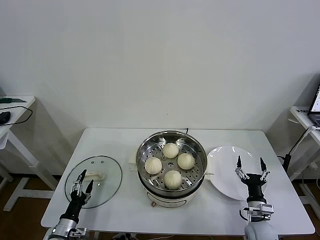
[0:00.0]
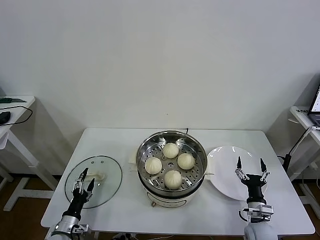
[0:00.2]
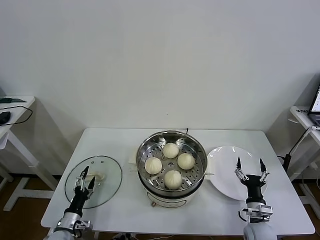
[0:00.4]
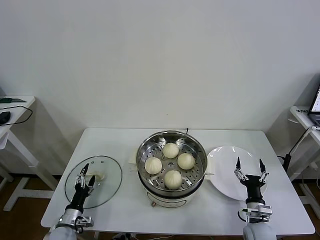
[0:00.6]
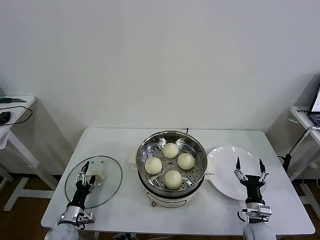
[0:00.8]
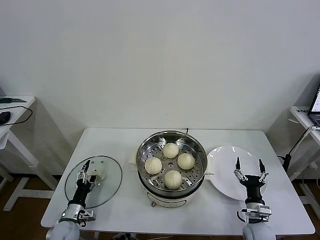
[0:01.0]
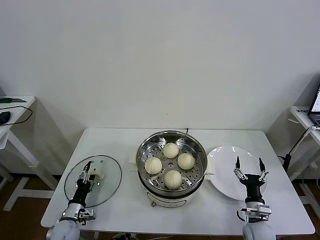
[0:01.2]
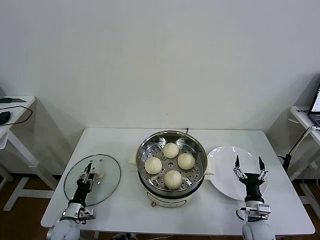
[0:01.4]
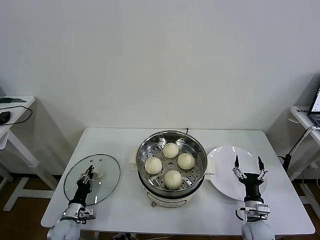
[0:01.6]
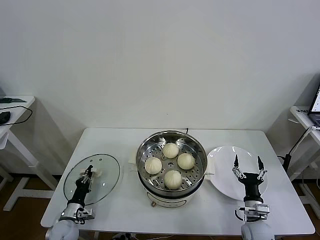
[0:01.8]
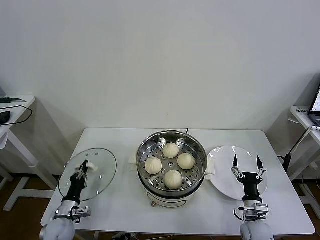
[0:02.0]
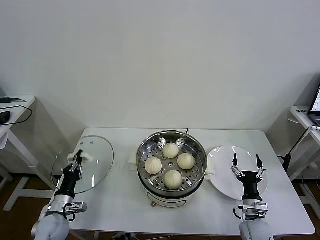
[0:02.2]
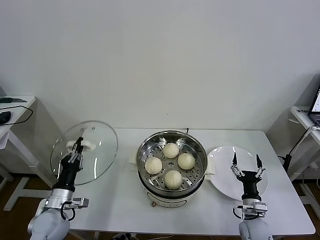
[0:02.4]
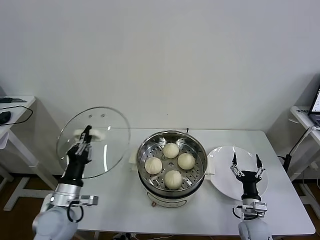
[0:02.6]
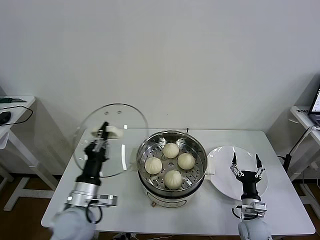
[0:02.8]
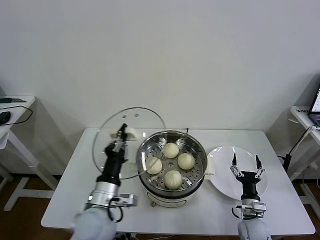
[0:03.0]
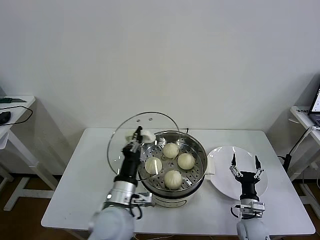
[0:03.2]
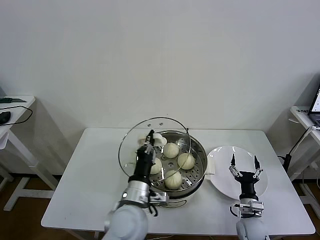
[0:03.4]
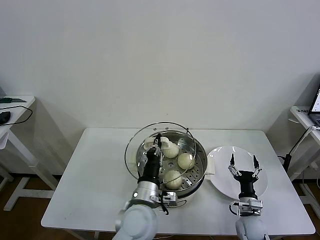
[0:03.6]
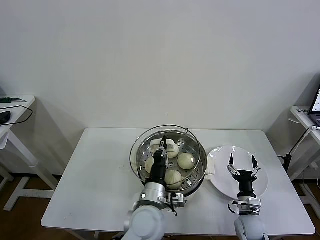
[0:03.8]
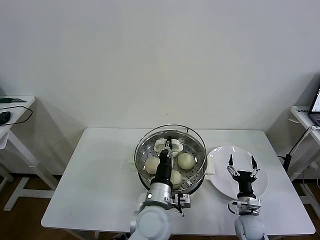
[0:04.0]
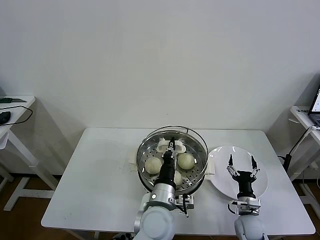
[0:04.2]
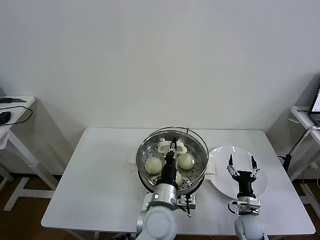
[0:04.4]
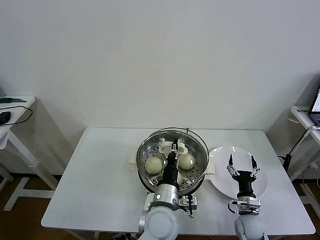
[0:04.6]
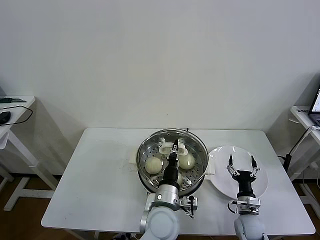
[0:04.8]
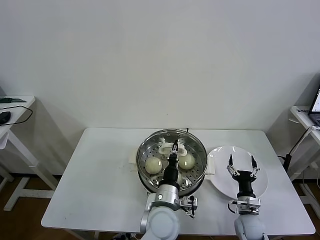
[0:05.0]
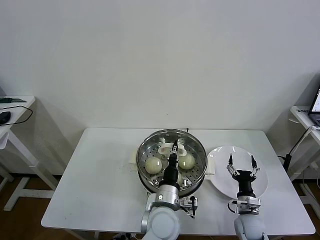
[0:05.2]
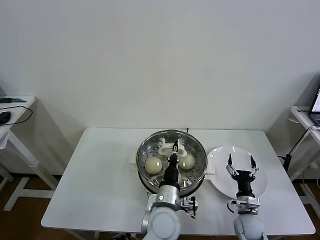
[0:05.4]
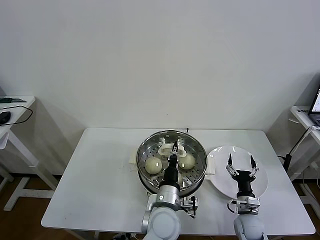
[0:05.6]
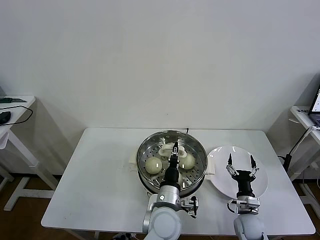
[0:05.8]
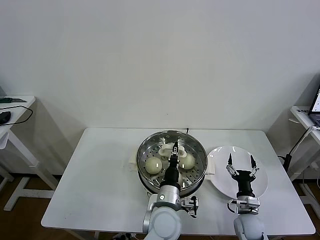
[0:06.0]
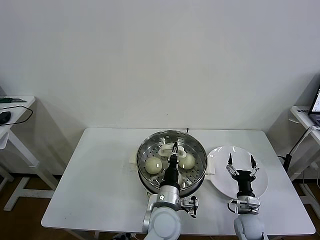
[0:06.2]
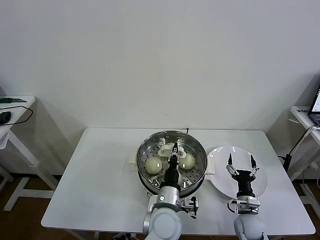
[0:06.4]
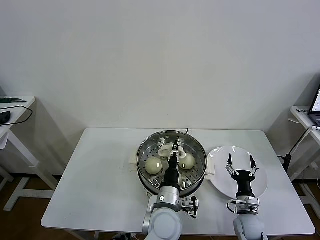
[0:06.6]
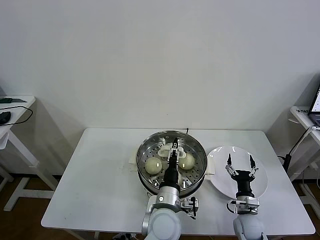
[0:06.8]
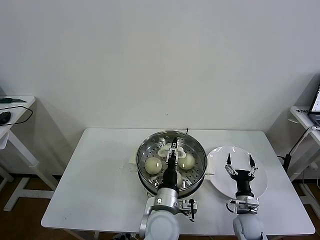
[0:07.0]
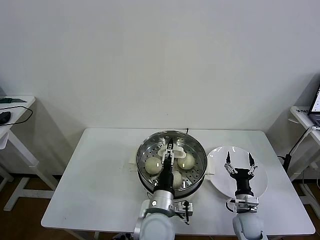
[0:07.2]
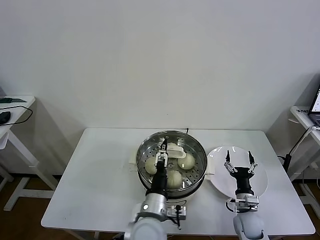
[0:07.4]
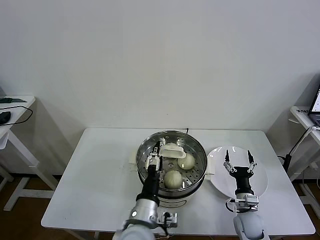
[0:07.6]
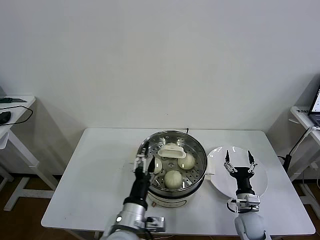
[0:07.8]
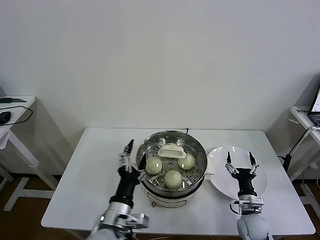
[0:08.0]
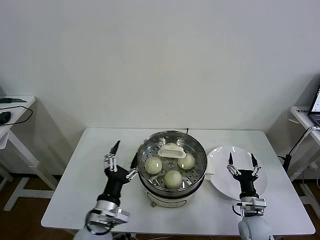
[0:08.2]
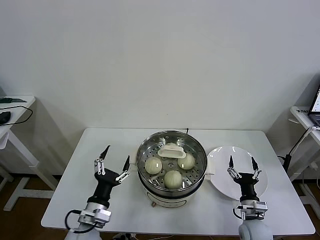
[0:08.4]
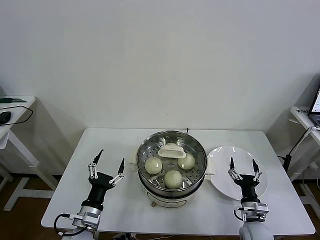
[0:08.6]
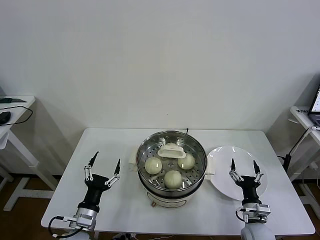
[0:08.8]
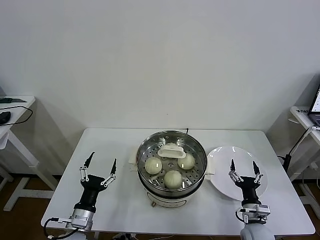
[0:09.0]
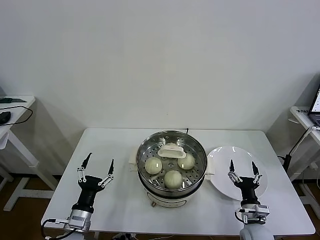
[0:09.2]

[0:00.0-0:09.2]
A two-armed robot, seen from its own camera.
Task of the whole recording: take steamed baozi put them in steamer then cover it.
Step, 0:02.2 to 0:06.6: Place the pot lid on the steamer with left gripper.
0:00.0 to 0:01.6: The left gripper travels forward by approximately 5 cm, and closes up.
0:01.6 to 0:03.0: The left gripper moves upward and to the right, approximately 30 cm.
0:03.0 to 0:04.6: The left gripper shifts some 20 cm to the right.
0:04.6 to 0:06.2: The grippers make only small movements.
0:06.2 to 0:07.6: The left gripper is displaced to the left by approximately 5 cm, and opens up.
0:07.6 to 0:09.2: The left gripper travels to the left and downward by about 25 cm.

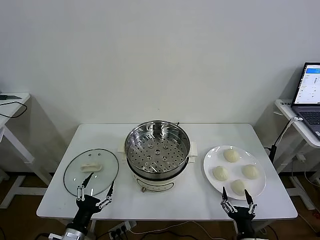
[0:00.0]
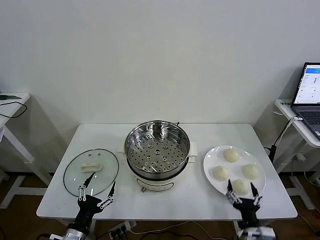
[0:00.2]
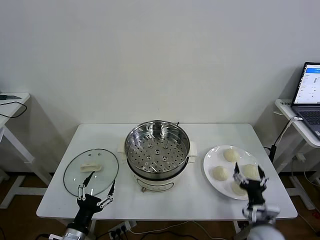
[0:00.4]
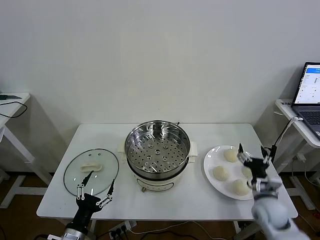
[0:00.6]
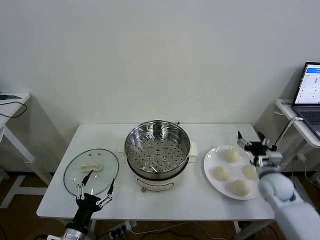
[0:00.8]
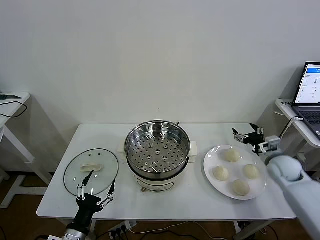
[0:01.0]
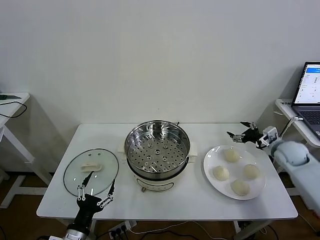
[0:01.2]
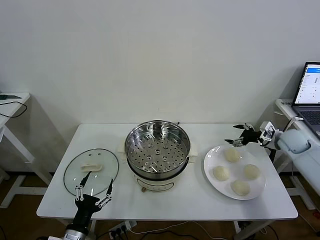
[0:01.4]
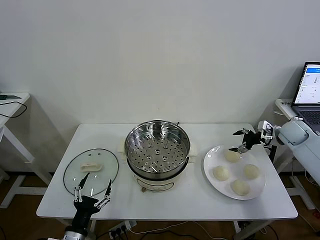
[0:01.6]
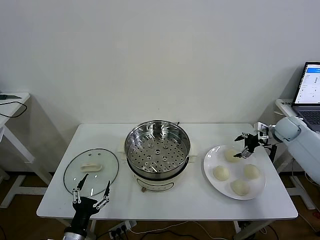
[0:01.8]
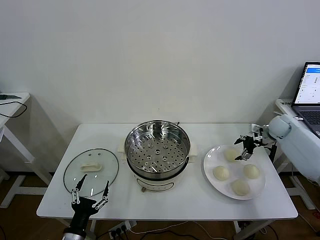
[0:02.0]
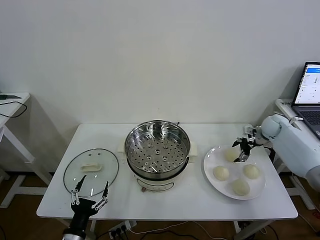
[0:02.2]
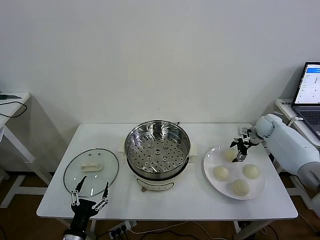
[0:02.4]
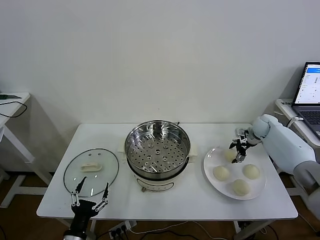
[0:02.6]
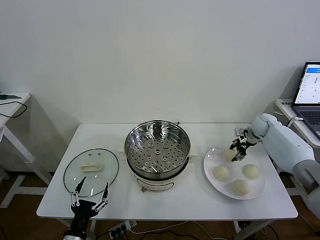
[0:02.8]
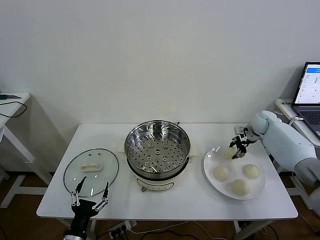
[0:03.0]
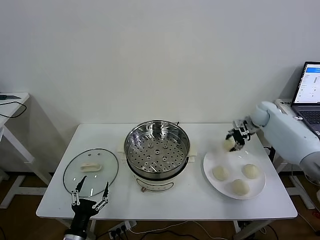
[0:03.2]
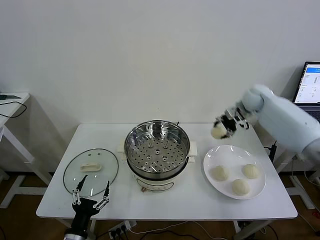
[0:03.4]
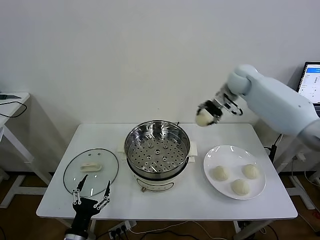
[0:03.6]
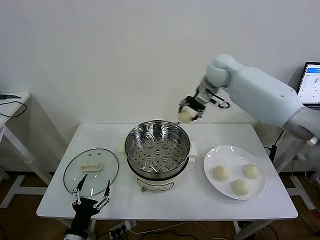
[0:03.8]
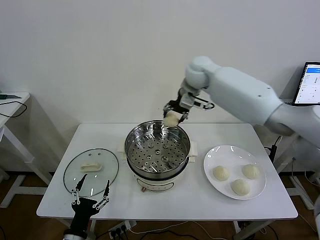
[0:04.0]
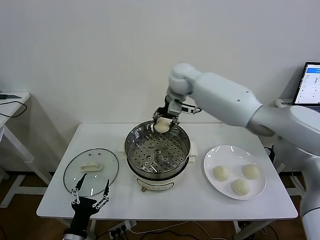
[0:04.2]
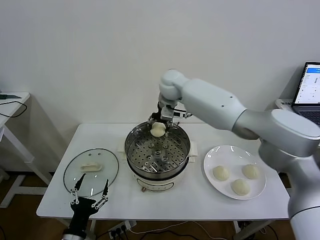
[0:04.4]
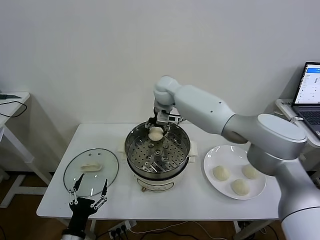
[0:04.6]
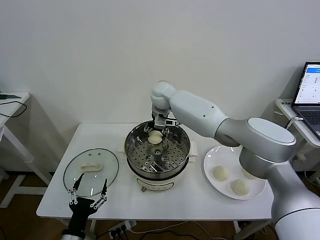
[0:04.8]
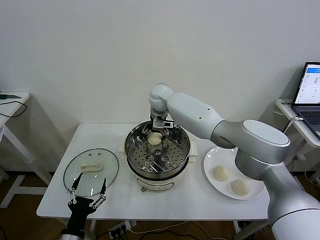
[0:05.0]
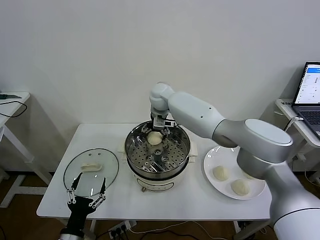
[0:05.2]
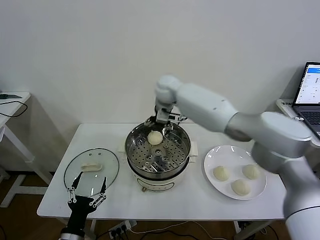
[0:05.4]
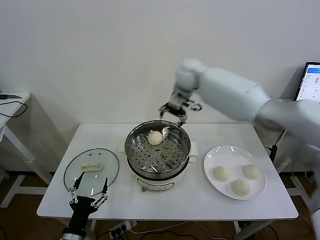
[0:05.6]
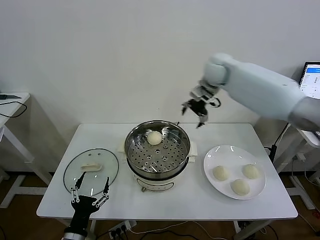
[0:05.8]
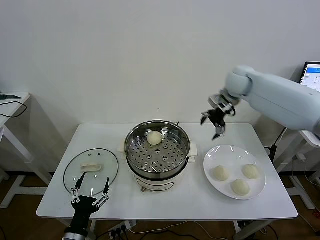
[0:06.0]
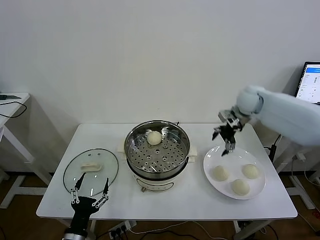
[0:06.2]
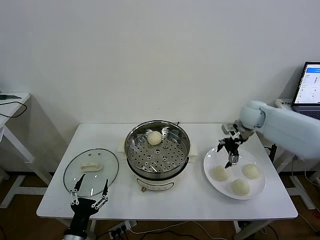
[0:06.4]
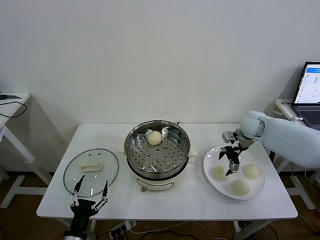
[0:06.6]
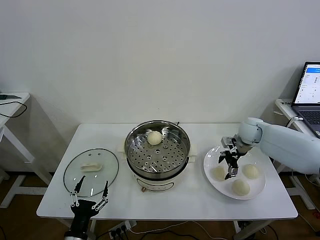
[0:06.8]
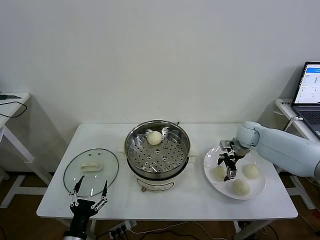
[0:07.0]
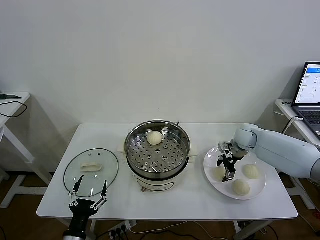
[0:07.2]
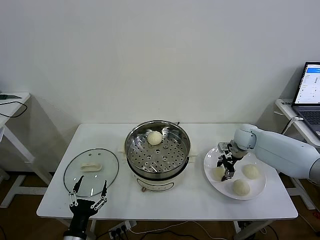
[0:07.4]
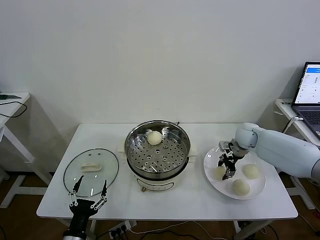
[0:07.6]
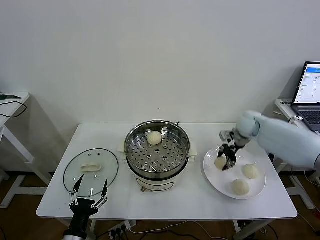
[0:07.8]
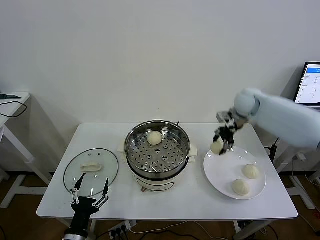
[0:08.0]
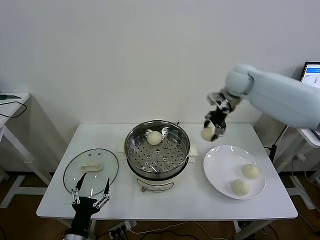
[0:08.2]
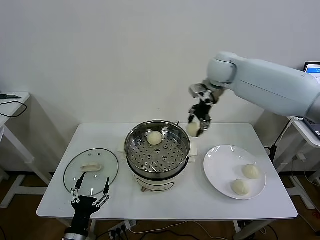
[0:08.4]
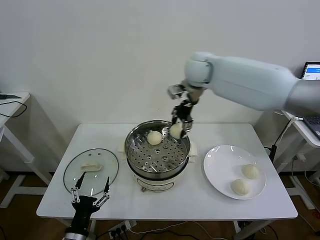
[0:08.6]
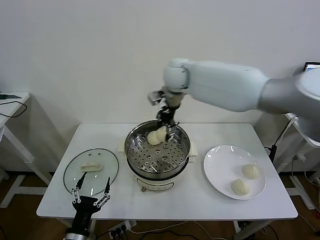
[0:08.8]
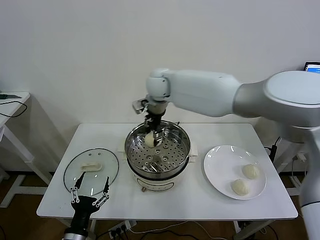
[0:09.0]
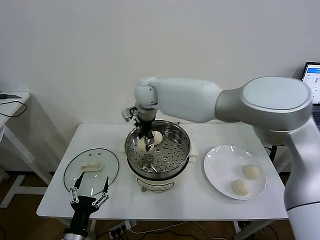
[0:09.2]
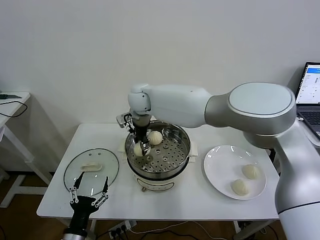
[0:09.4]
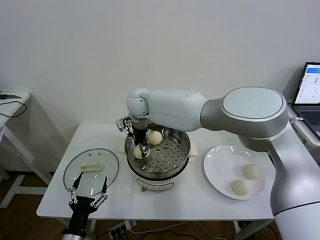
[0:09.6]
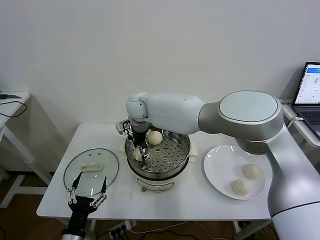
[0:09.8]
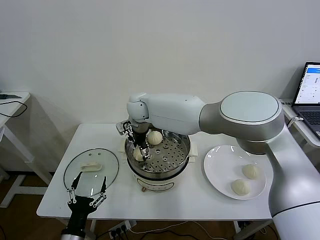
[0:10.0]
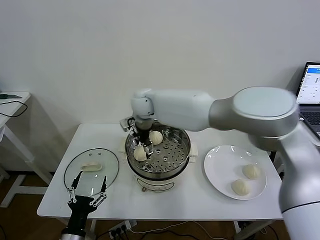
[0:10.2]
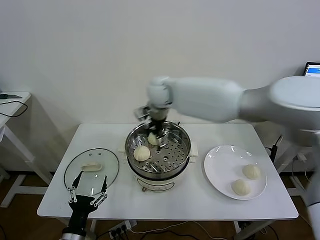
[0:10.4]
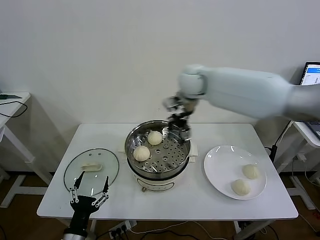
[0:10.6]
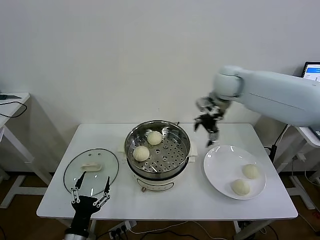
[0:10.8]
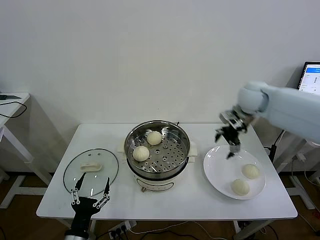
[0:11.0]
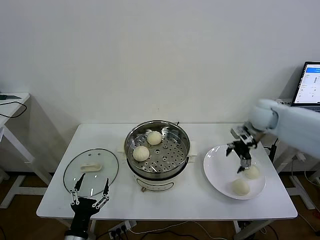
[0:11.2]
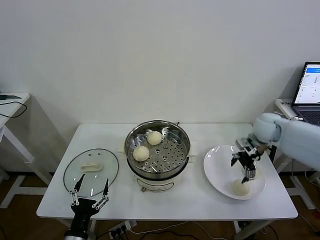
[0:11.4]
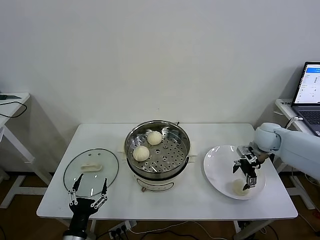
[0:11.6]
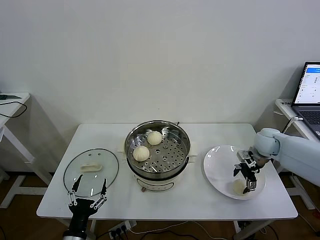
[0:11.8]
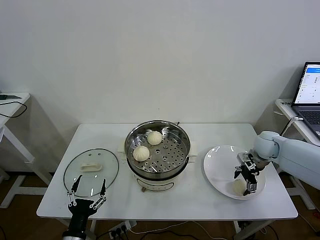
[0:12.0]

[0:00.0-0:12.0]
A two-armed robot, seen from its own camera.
Task of the whole recording: take steamed baozi put them in steamer then cover it.
Step, 0:00.0 to 0:02.8: Grasp the baozi in the plate with right gripper.
Step, 0:03.0 to 0:05.2: Place the baozi on the steamer with right gripper.
Step, 0:05.4 to 0:07.4: Grasp the baozi in the plate with right gripper.
Step, 0:07.6 to 0:10.0: Place the baozi on the steamer with right gripper.
0:01.6 to 0:03.0: The right gripper shifts some 10 cm forward and to the left, and closes its fingers.
0:03.0 to 0:04.4: The right gripper heads to the left, covering roughly 40 cm.
0:04.4 to 0:06.0: The right gripper shifts approximately 25 cm to the right, and opens its fingers.
0:06.0 to 0:07.6: The right gripper heads downward, covering some 15 cm, and closes.
0:07.6 to 0:09.0: The right gripper heads to the left and upward, covering approximately 40 cm.
0:09.0 to 0:10.4: The right gripper goes approximately 5 cm to the right, and opens.
0:10.4 to 0:12.0: The right gripper shifts about 40 cm to the right and downward.

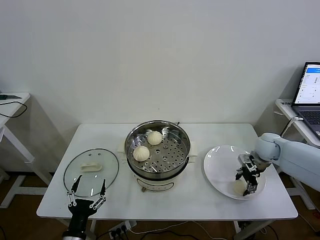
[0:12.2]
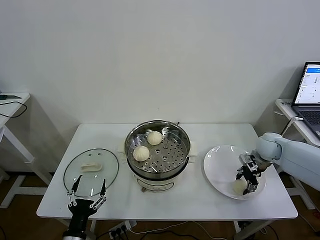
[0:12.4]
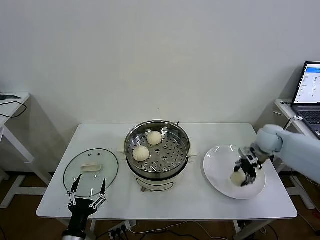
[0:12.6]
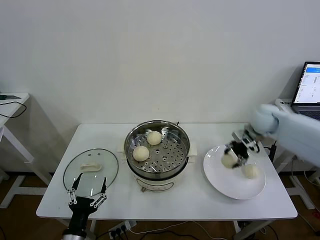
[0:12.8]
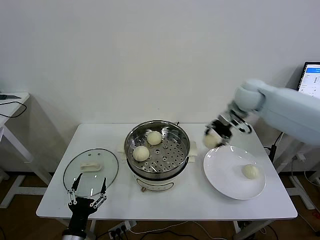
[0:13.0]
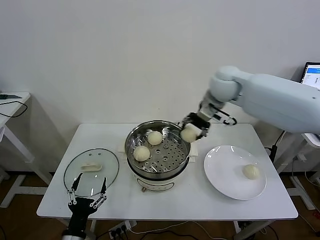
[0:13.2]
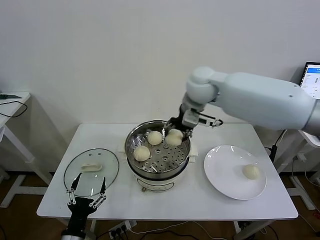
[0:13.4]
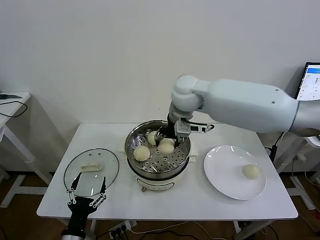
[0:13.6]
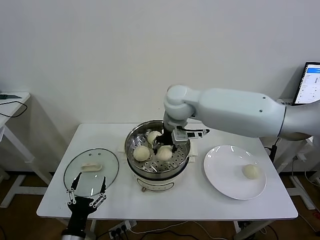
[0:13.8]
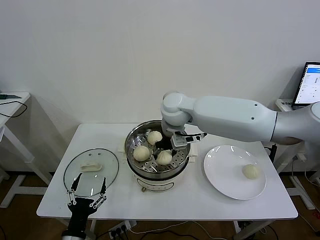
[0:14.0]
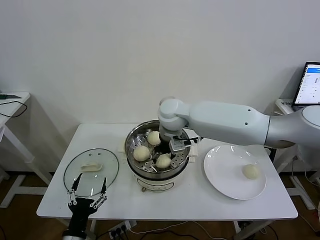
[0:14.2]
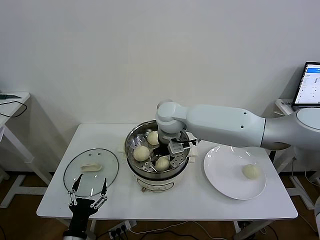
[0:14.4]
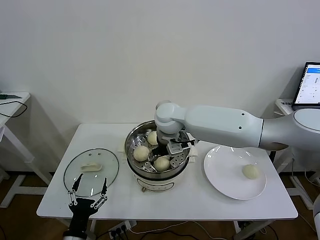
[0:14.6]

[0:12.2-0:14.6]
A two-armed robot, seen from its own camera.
Task of the whole recording: take steamed baozi put them in steamer then cover it.
0:12.2 to 0:13.4: The right gripper shifts approximately 40 cm to the left and upward.
0:13.4 to 0:14.6: The right gripper goes roughly 10 cm downward and to the left, and opens.
